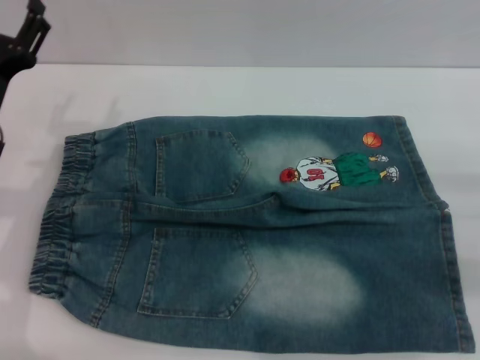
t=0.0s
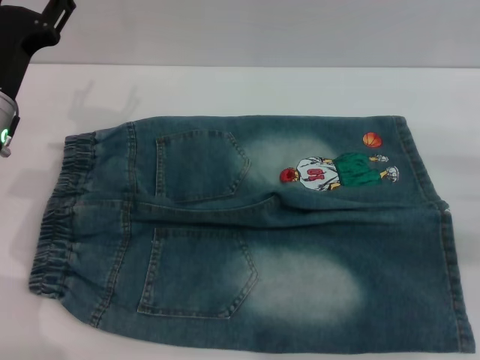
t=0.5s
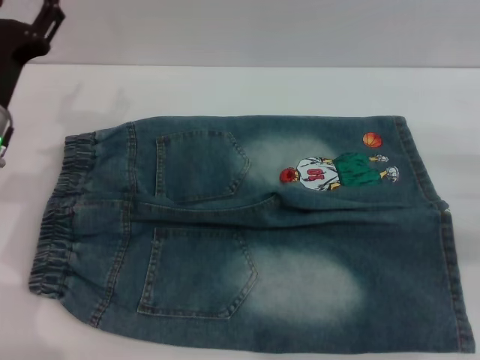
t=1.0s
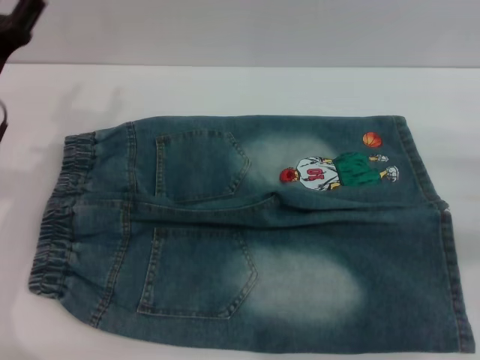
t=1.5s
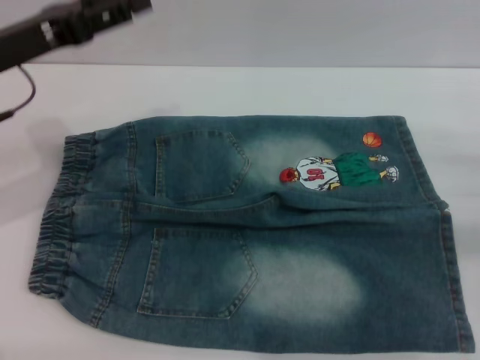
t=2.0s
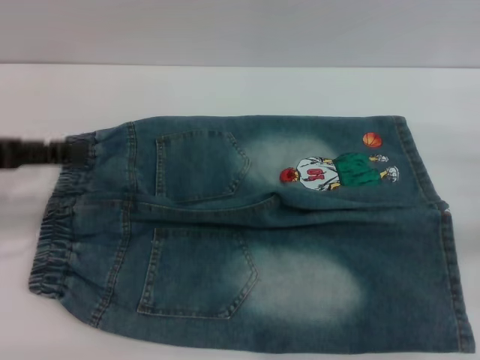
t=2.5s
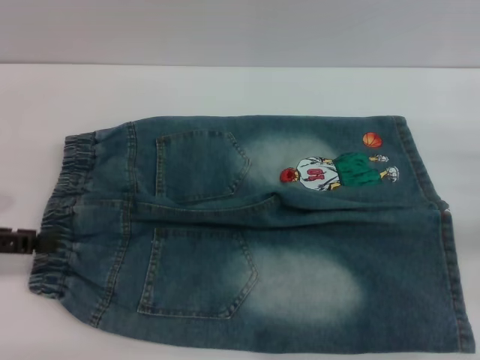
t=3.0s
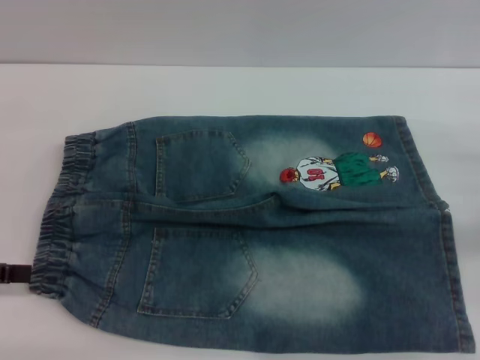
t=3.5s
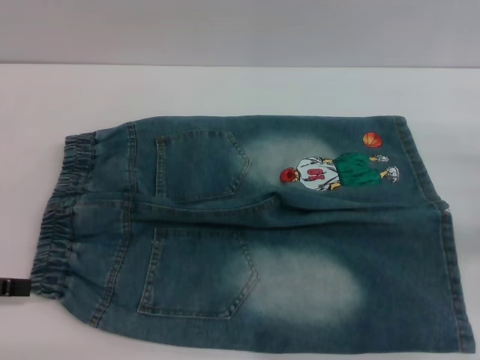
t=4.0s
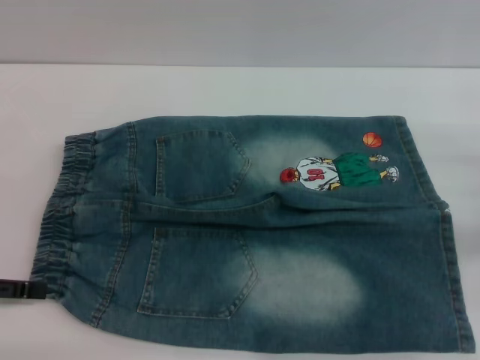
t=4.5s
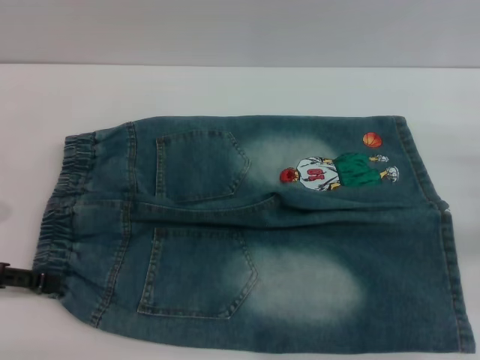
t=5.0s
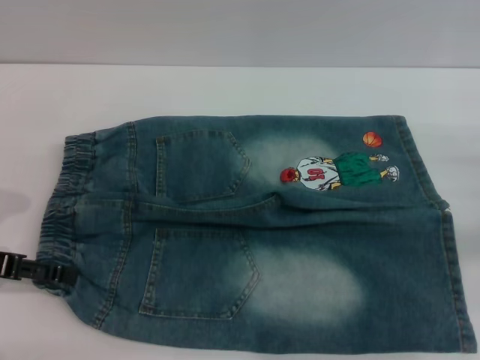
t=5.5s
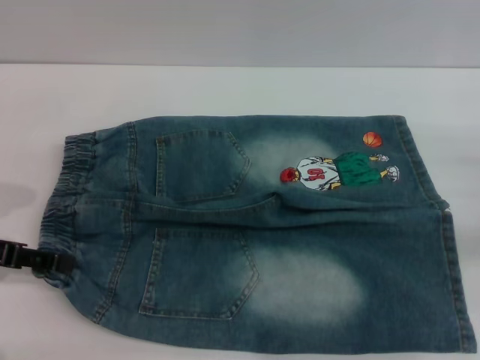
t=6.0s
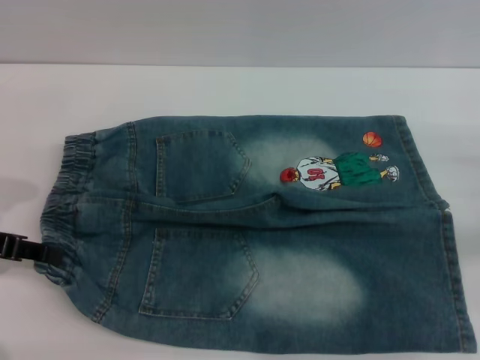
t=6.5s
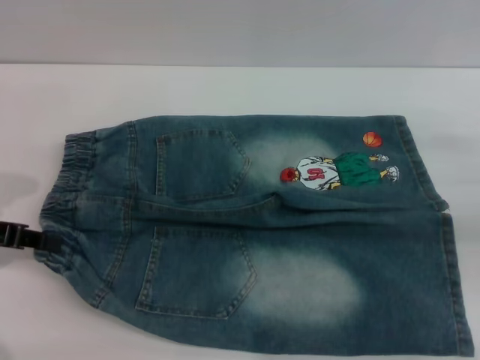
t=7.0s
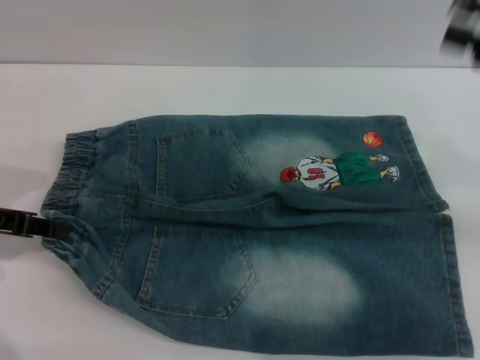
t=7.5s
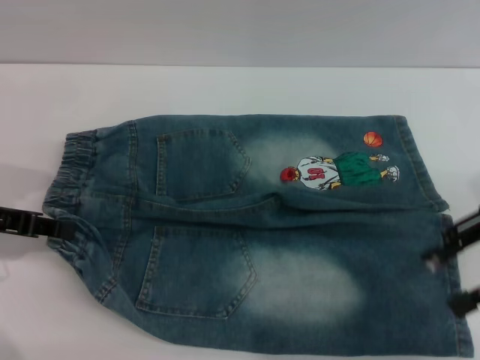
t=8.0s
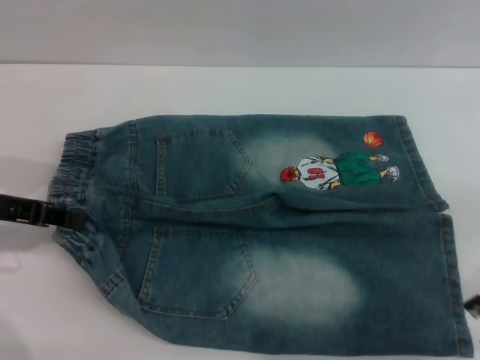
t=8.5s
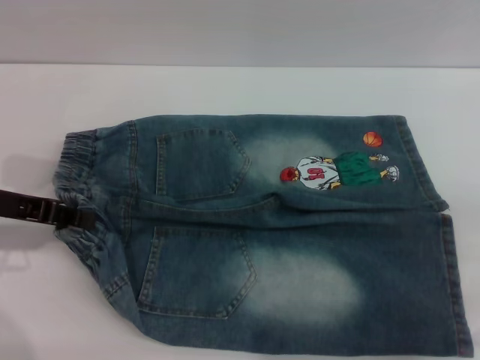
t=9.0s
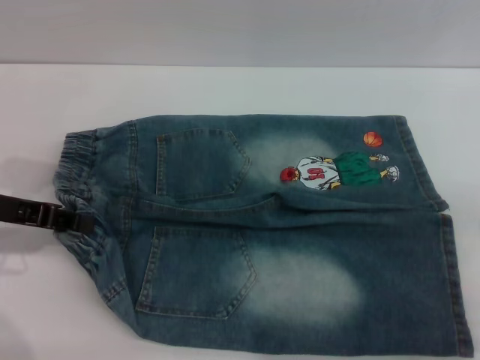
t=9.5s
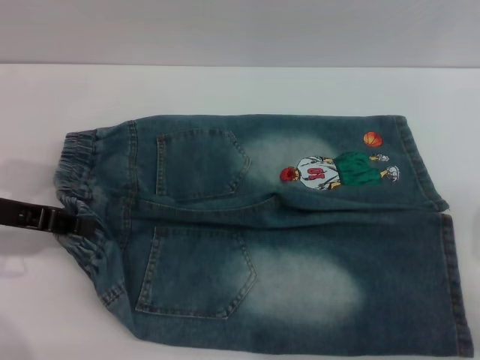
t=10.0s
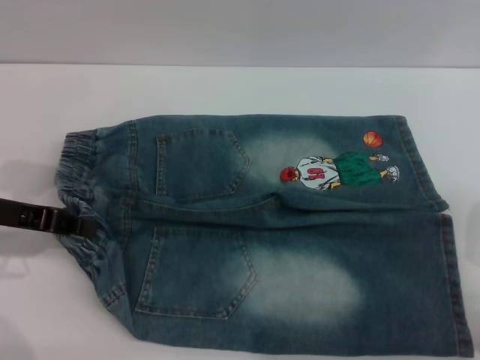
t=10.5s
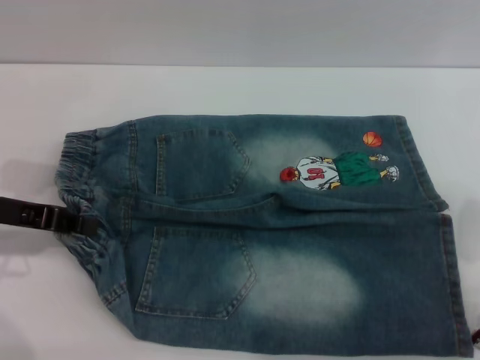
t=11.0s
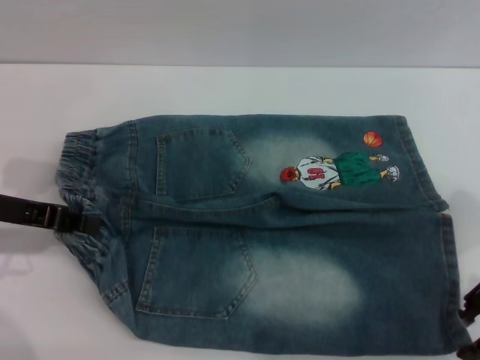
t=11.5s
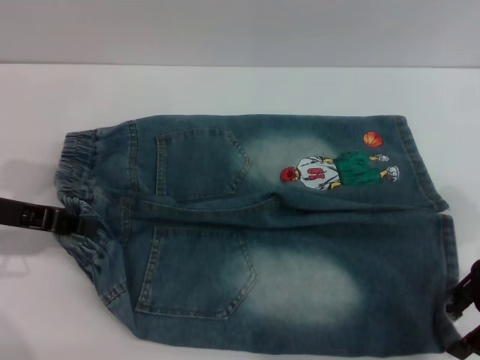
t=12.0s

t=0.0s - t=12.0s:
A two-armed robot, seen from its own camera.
t=0.0s - t=2.0s: The left gripper heads upward, covering roughly 10 cm.
t=2.0s - t=4.0s: The left gripper travels backward, to the left and downward by some 20 cm.
t=4.0s - t=6.0s: The left gripper changes place by some 5 cm.
t=6.0s - t=8.0s: The right gripper heads upward and to the left, covering roughly 15 cm, while the left gripper closes up.
t=8.0s - t=10.0s: The right gripper is displaced downward by about 5 cm.
t=10.0s - t=12.0s: The grippers move only a little.

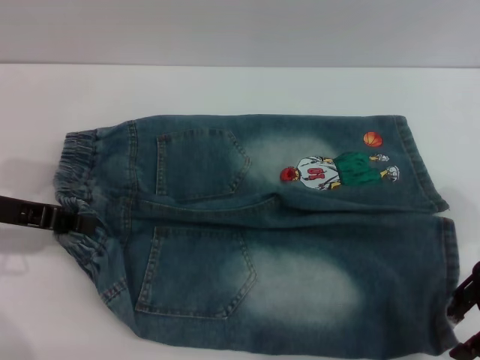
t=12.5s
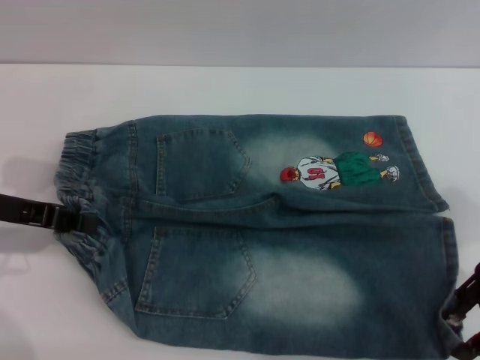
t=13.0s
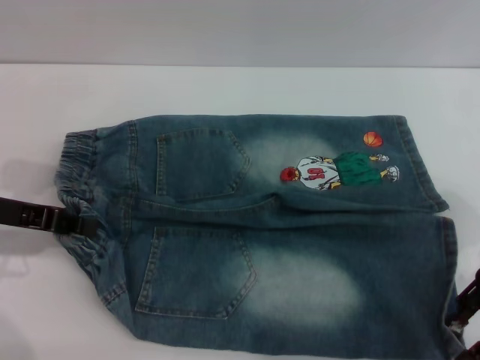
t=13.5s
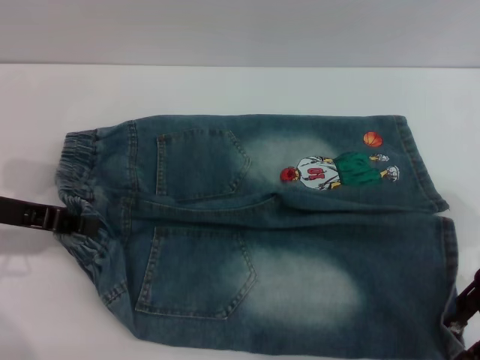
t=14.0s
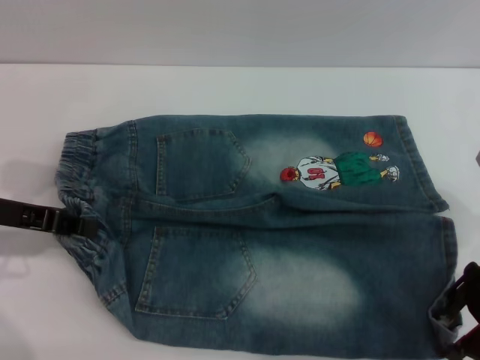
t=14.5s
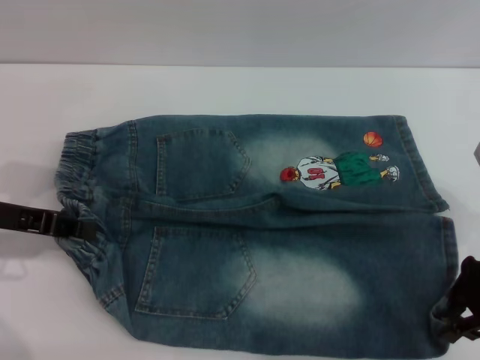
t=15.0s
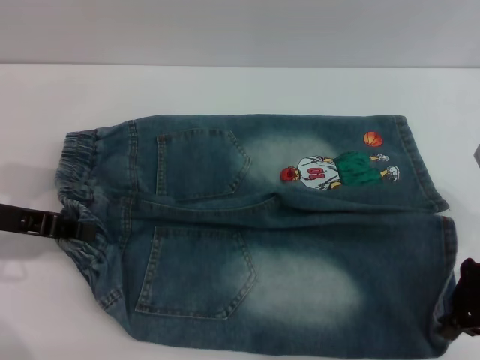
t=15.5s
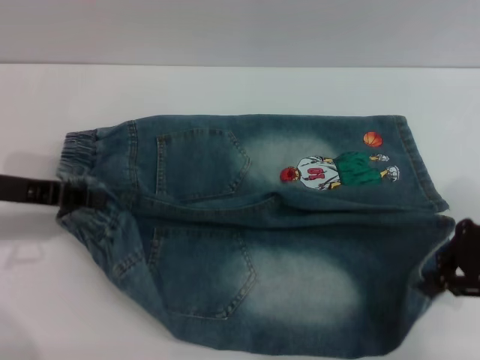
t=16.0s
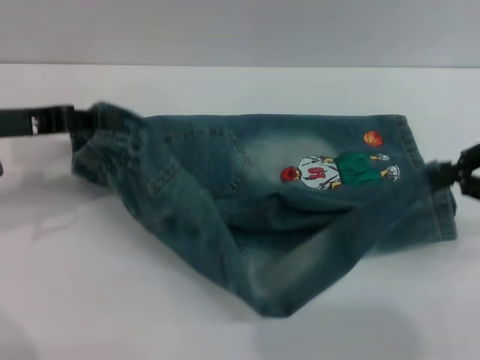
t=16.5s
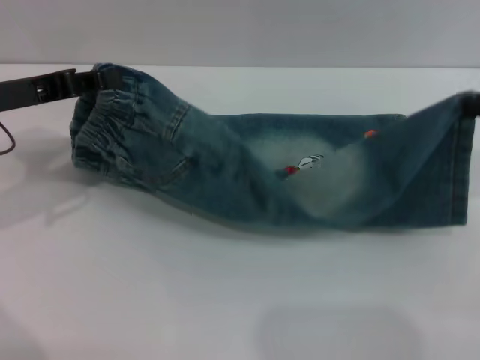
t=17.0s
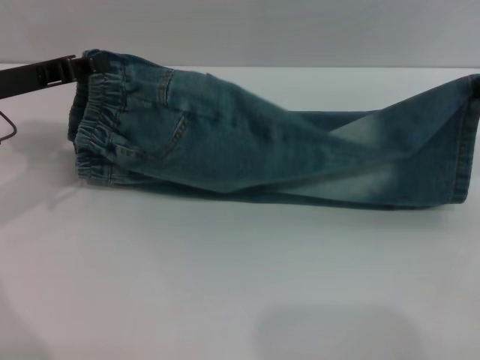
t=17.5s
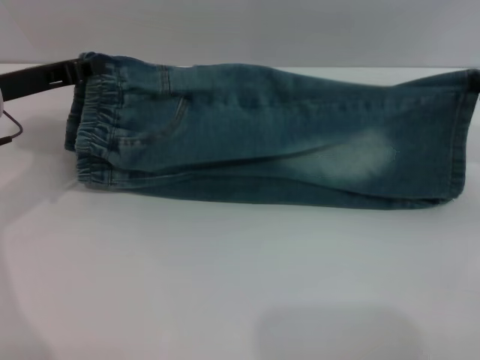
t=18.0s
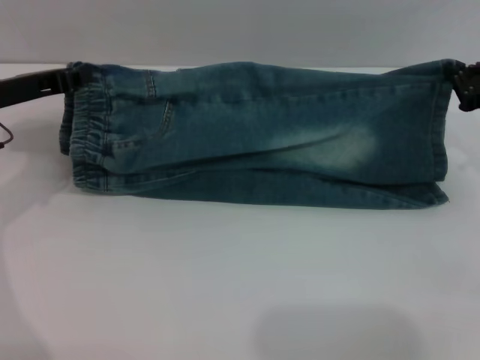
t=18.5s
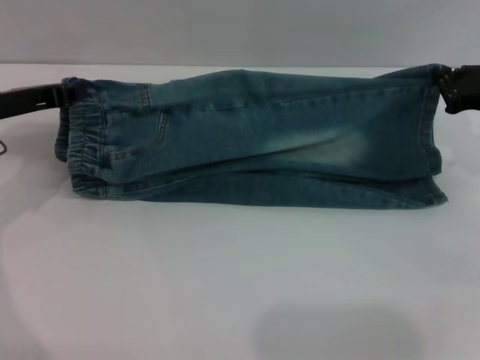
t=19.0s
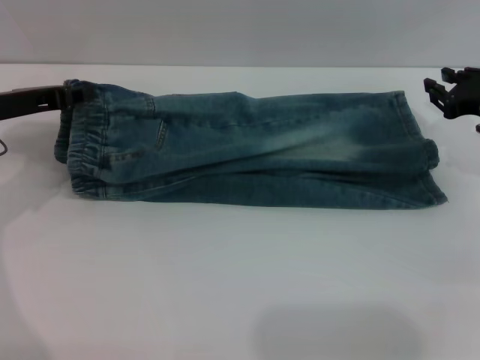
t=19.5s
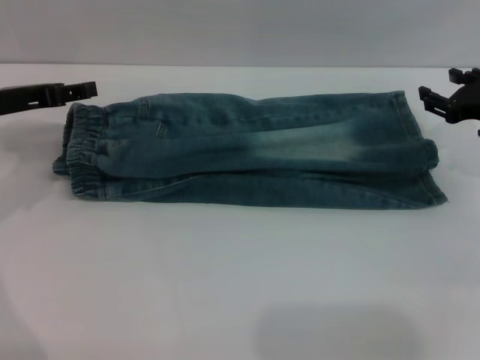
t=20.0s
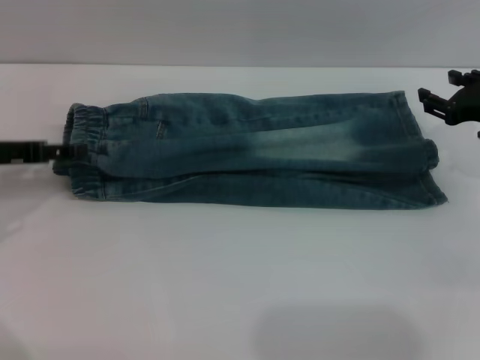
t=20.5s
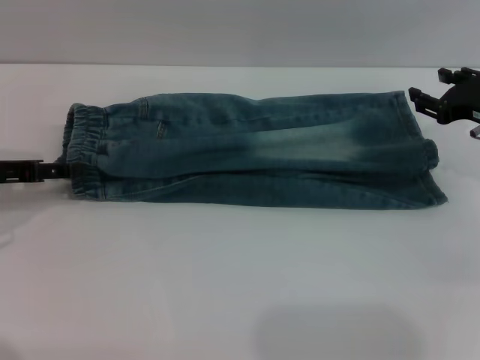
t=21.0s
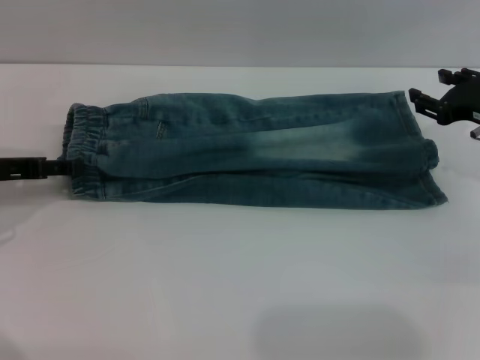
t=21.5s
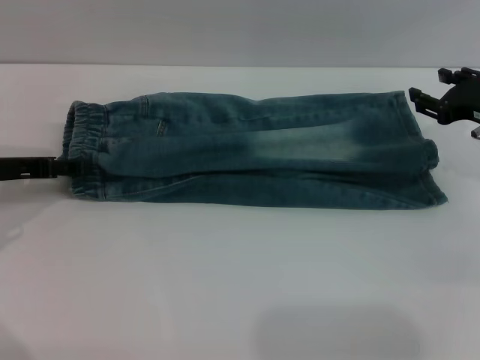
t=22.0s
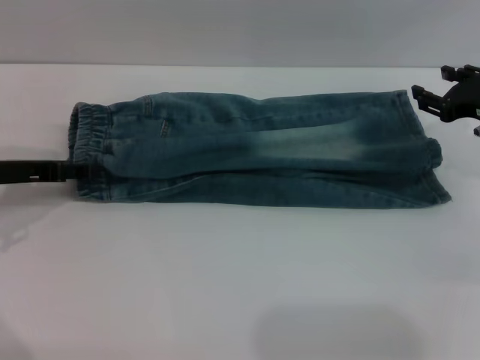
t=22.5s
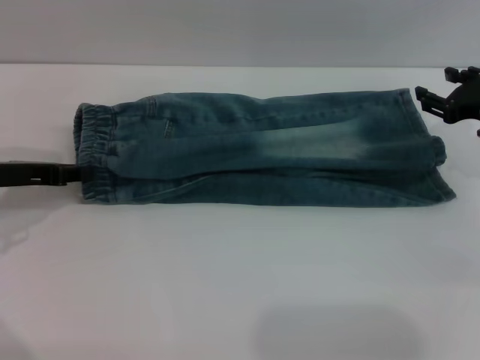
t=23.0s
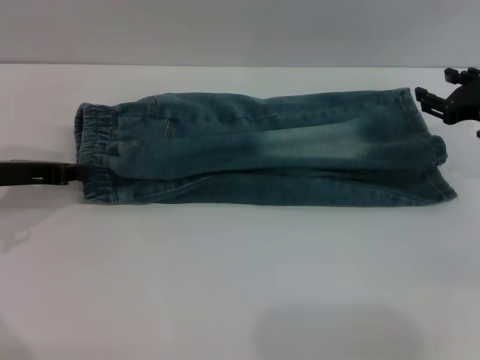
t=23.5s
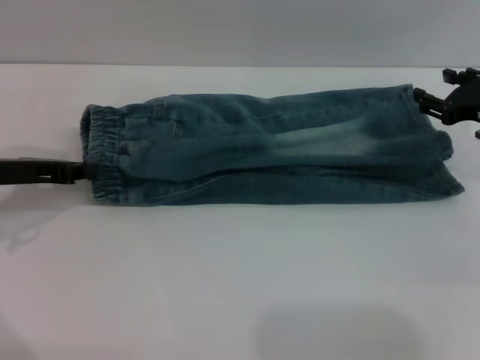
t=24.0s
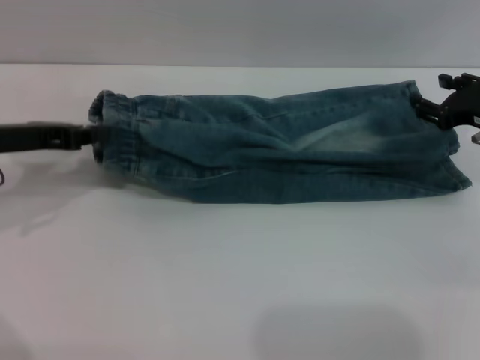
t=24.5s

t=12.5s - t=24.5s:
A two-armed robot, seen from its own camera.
Step, t=12.5s - t=20.5s: Fold the bottom of the pants upward with both grippers.
t=12.5s - t=14.5s: Both grippers stay about where they are.
t=14.5s - t=16.5s: The right gripper goes approximately 10 cm to the right and upward, and closes its fingers.
t=16.5s - t=18.5s: The left gripper ends up about 5 cm from where it was; the right gripper goes approximately 10 cm forward and downward.
t=18.5s - t=20.5s: The right gripper opens; the left gripper opens.
t=20.5s - t=22.5s: The grippers stay close to where they were, moving slightly.
t=22.5s - t=24.5s: The left gripper closes.

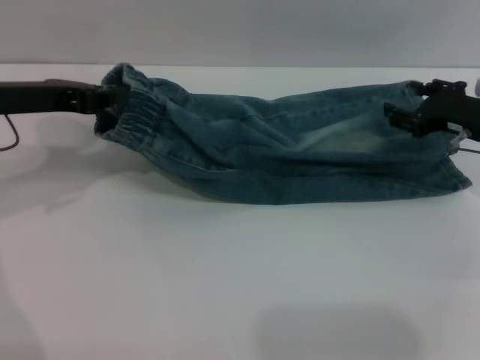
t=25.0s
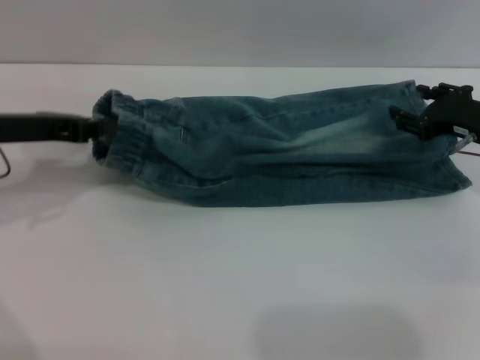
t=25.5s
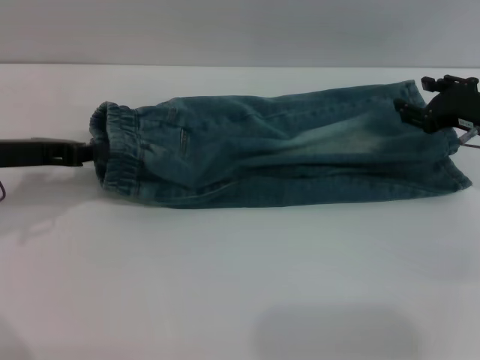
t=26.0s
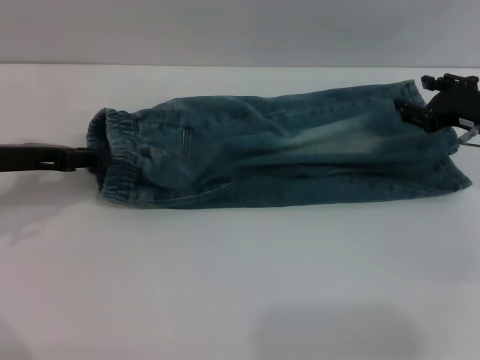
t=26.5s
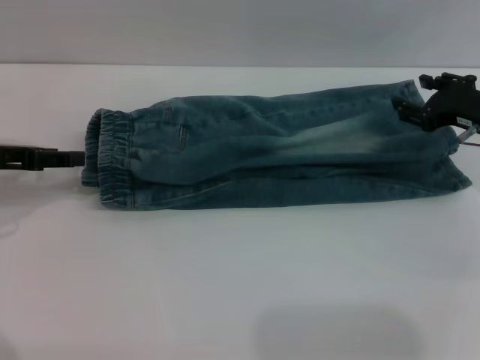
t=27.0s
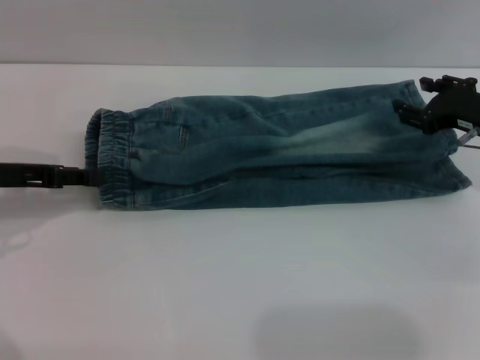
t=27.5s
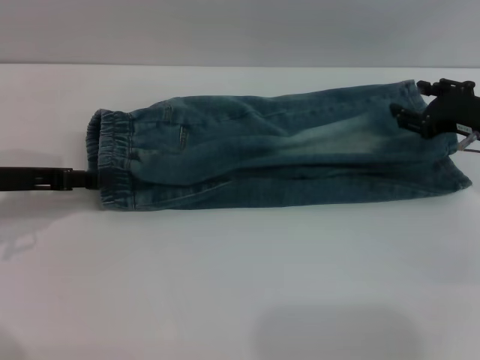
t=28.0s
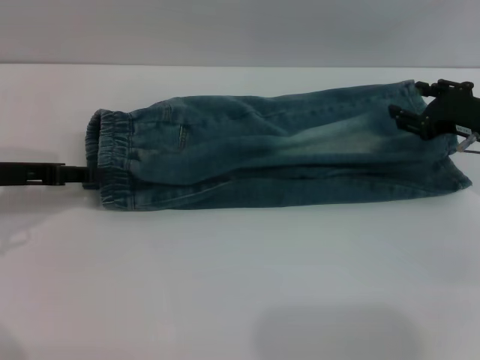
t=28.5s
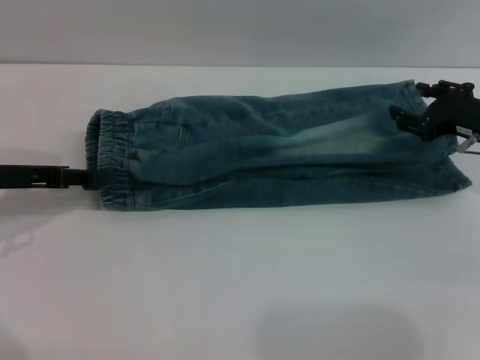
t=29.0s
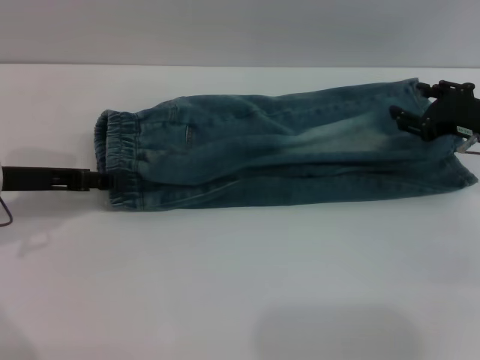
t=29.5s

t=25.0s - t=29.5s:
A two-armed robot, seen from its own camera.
t=25.0s - t=27.0s: The left gripper shifts roughly 5 cm to the left, and opens.
t=27.0s - t=29.5s: There are only small adjustments of the grippers.
